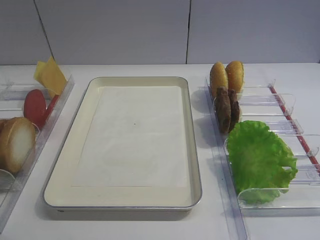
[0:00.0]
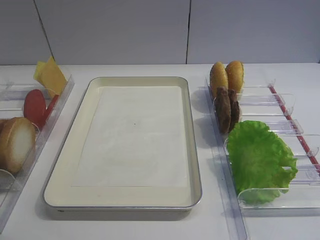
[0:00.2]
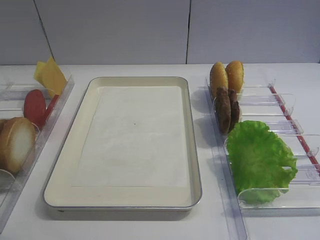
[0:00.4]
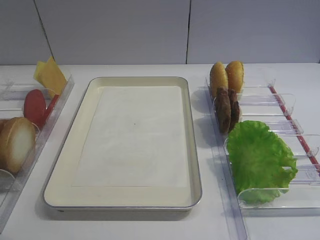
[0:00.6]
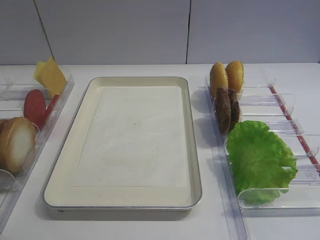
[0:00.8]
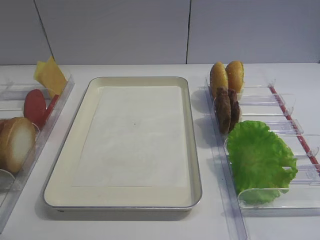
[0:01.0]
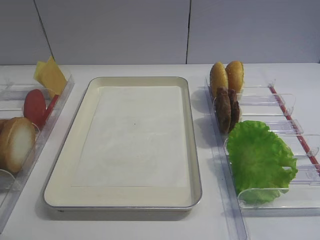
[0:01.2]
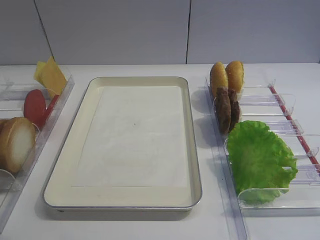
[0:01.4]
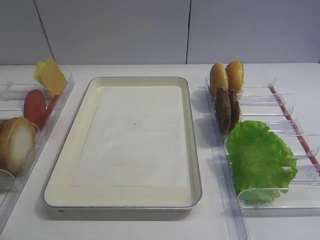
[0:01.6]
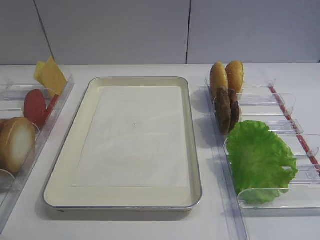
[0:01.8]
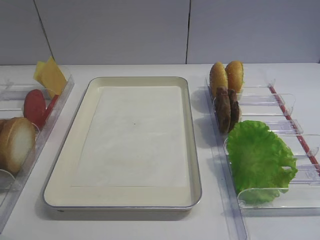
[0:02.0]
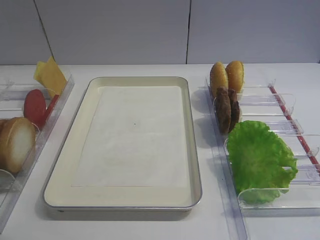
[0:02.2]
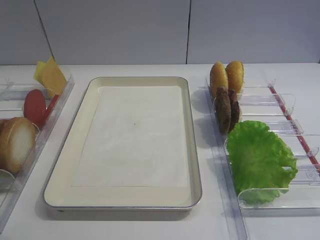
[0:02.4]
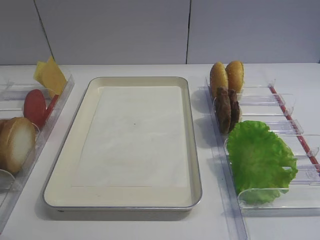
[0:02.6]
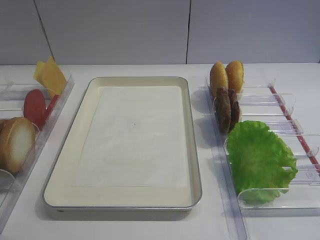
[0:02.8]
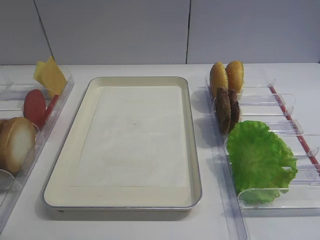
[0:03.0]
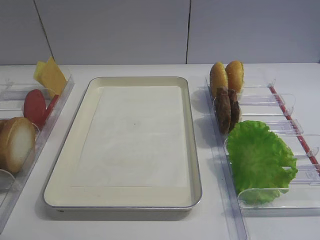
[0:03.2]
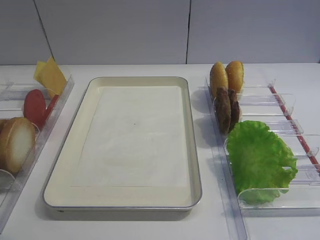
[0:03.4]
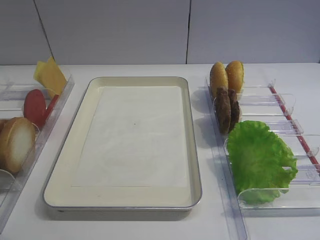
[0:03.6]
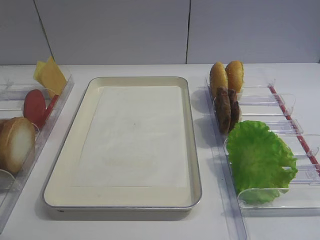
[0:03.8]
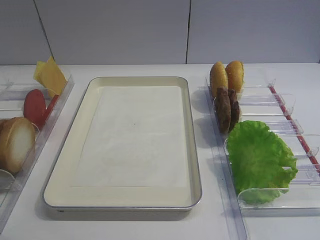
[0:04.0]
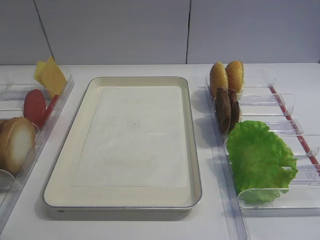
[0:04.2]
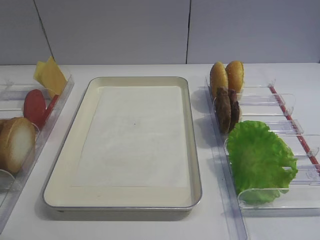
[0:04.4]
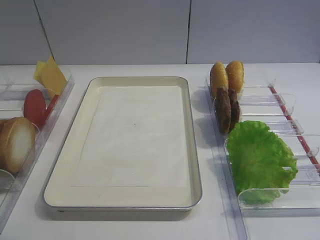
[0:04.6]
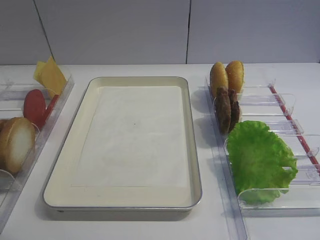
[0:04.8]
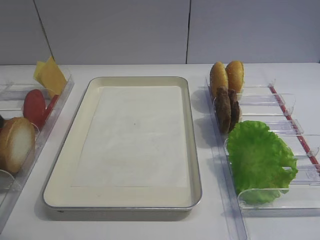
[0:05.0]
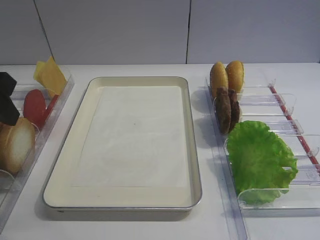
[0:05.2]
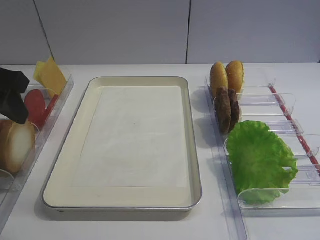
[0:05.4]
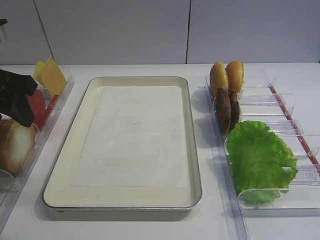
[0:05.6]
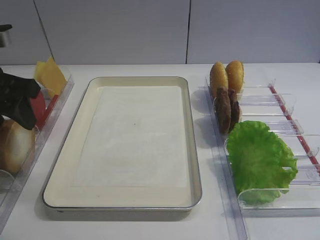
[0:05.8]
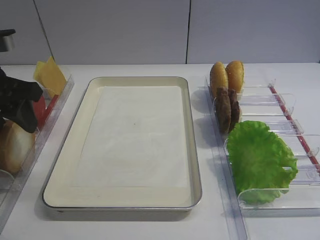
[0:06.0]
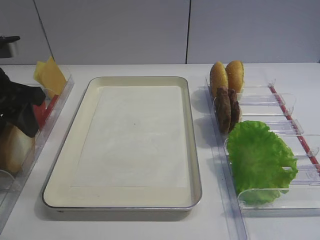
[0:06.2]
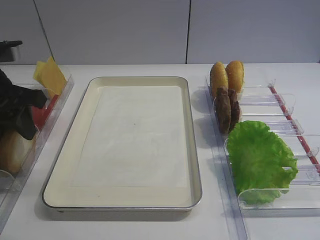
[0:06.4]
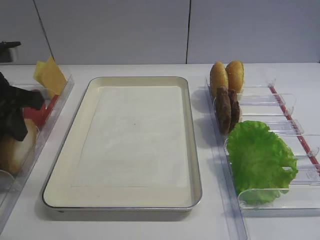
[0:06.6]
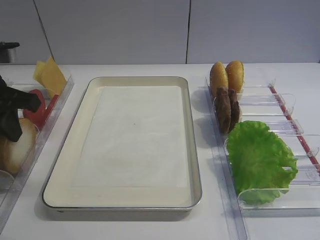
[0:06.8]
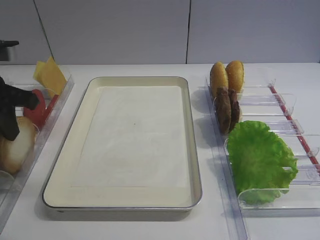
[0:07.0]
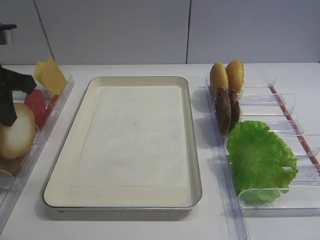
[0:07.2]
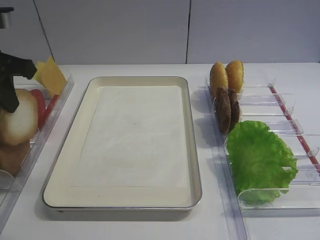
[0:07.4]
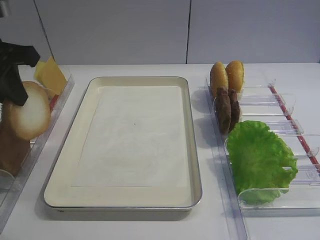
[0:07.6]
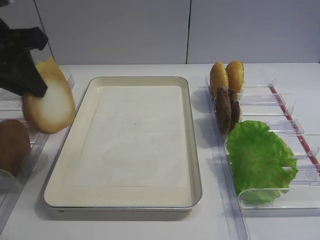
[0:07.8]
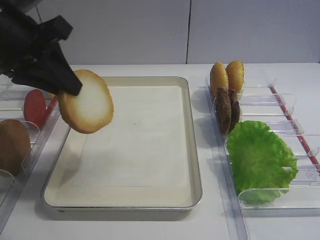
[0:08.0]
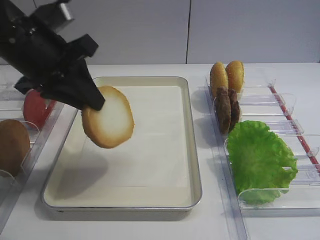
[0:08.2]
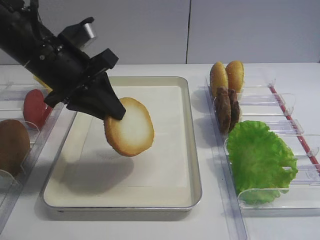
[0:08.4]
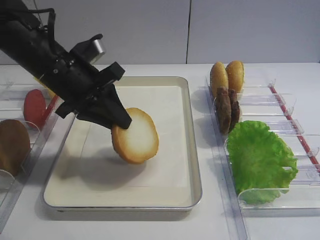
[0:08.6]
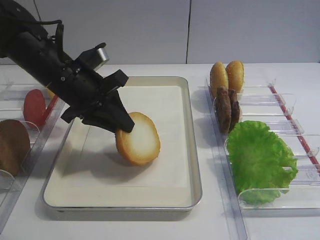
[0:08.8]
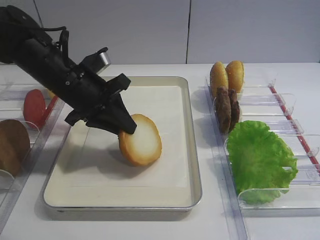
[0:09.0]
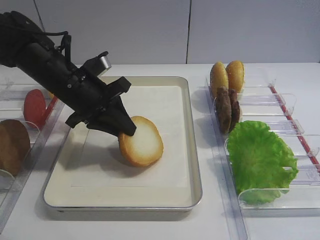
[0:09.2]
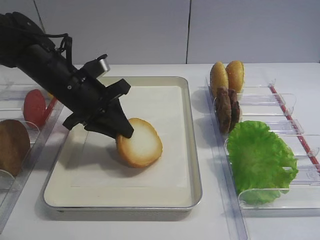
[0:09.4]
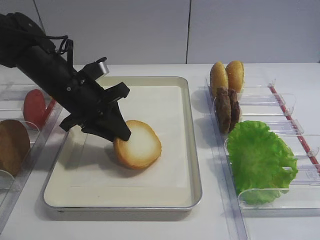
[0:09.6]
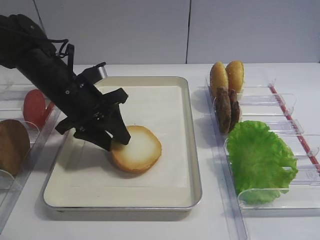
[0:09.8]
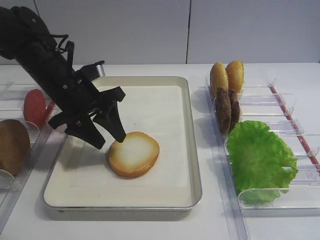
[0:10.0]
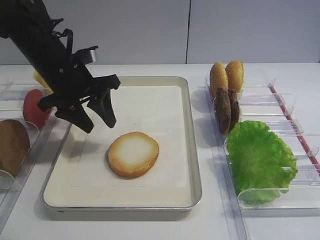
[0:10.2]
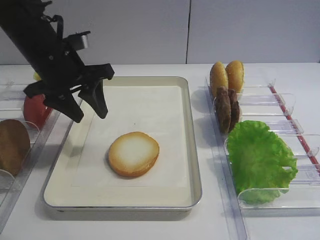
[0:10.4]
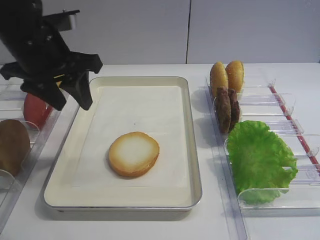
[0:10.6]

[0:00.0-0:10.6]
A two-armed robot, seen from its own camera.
Step, 0:00.0 to 0:07.2: Pick up the bread slice with the left gripper.
Step, 0:07.4 to 0:10.2: Place the bread slice on the tray with the left gripper.
0:01.6 to 0:03.0: Both grippers stay put.
0:04.6 to 0:06.0: The left gripper goes approximately 15 cm forward.
0:06.0 to 0:07.6: The left gripper changes place by approximately 5 cm, and closes up.
0:07.6 to 0:09.0: The left gripper heads downward, to the right and forward, covering some 15 cm.
0:09.0 to 0:10.6: The left gripper goes some 10 cm upward, and opens.

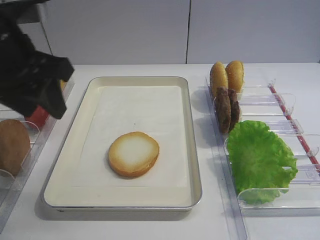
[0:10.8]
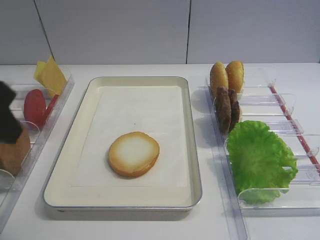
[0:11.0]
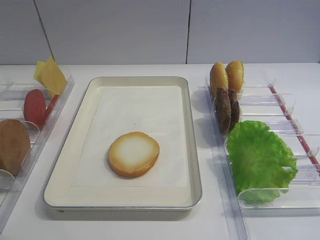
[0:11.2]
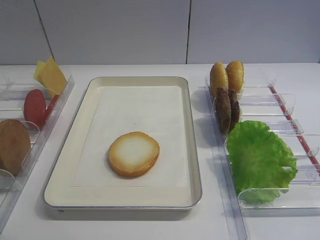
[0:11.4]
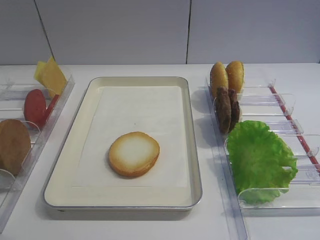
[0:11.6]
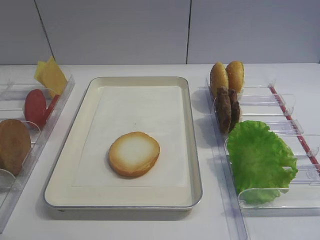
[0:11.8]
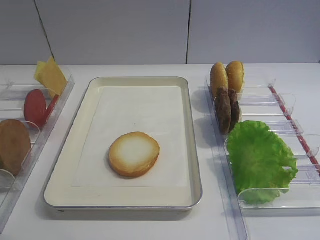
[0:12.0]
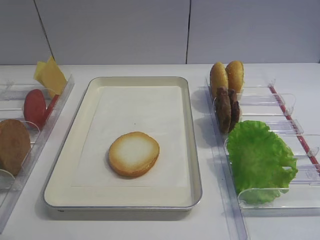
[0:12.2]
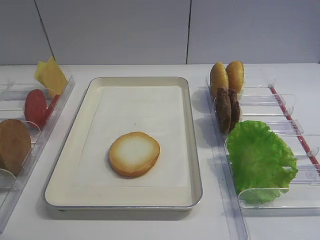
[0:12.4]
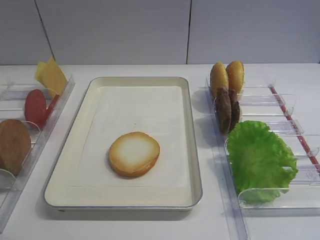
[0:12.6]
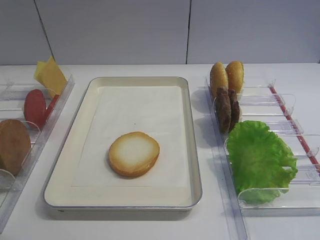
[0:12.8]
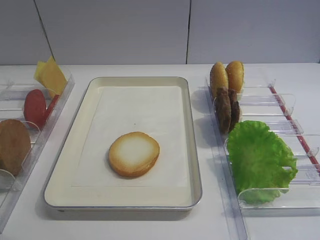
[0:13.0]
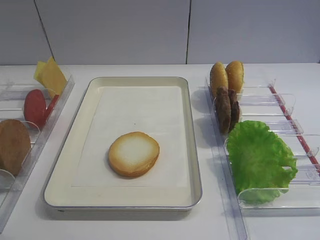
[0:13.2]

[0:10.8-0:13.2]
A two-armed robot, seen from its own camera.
0:10.8 to 0:12.0: The left gripper shifts about 25 cm backward.

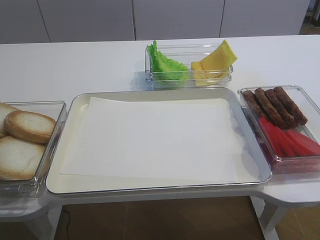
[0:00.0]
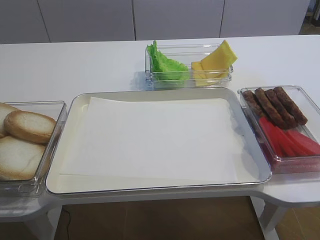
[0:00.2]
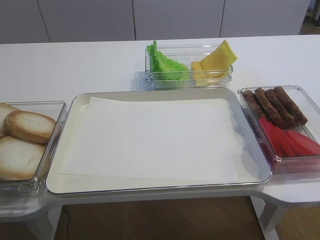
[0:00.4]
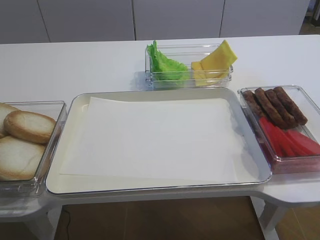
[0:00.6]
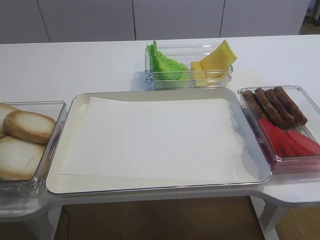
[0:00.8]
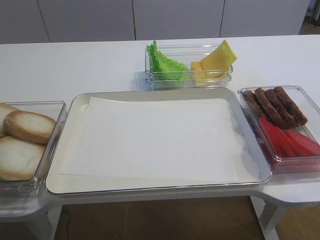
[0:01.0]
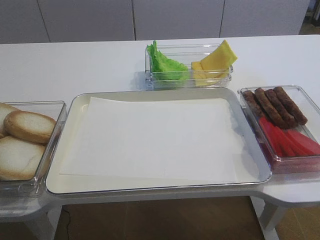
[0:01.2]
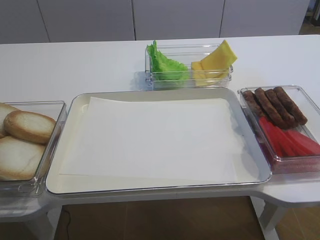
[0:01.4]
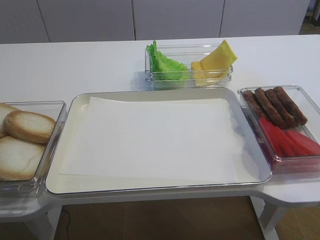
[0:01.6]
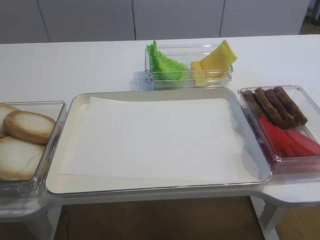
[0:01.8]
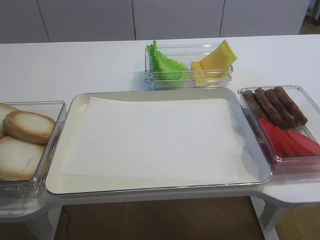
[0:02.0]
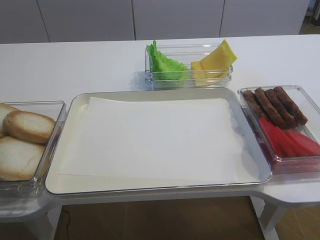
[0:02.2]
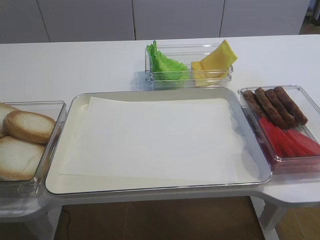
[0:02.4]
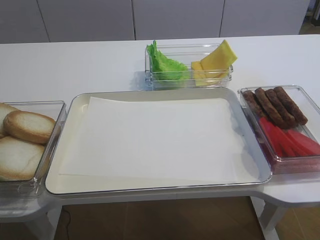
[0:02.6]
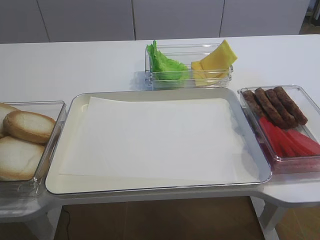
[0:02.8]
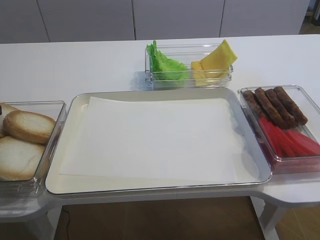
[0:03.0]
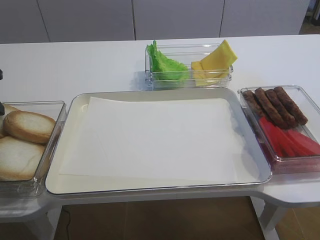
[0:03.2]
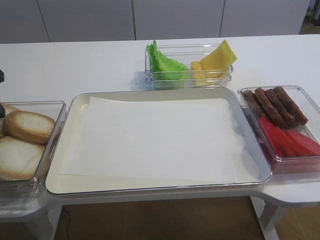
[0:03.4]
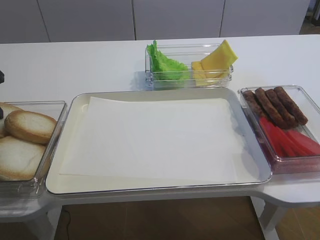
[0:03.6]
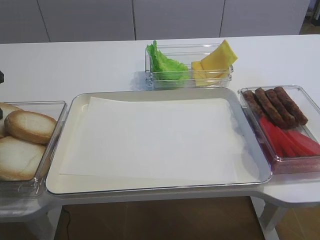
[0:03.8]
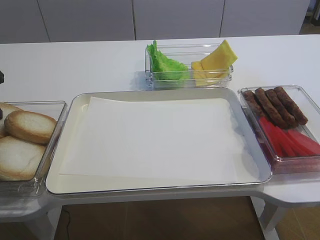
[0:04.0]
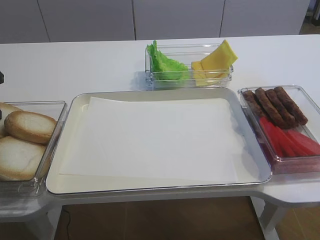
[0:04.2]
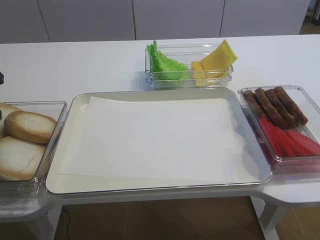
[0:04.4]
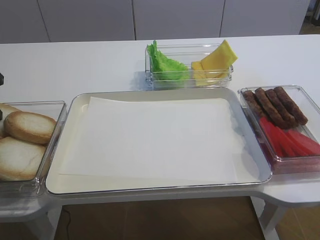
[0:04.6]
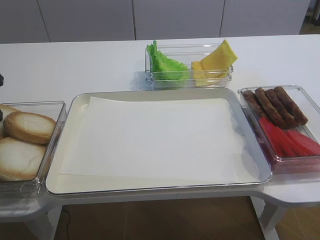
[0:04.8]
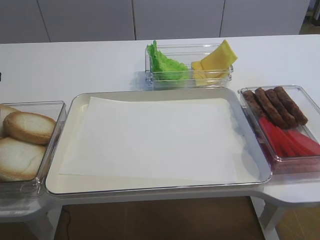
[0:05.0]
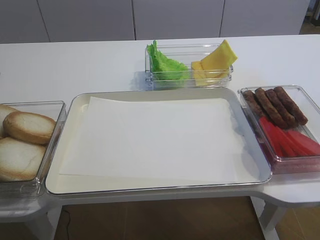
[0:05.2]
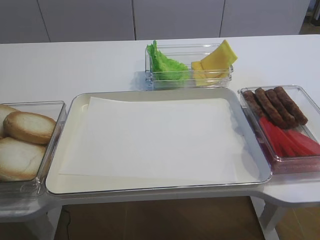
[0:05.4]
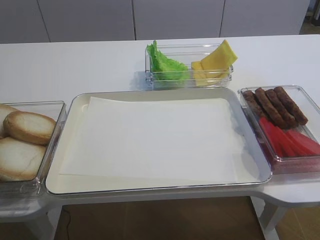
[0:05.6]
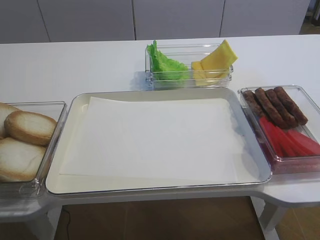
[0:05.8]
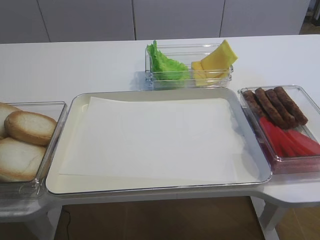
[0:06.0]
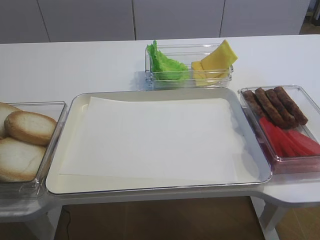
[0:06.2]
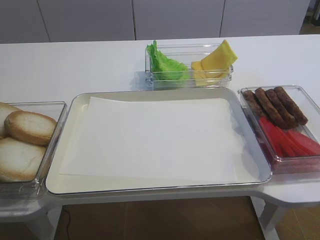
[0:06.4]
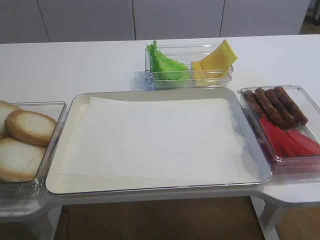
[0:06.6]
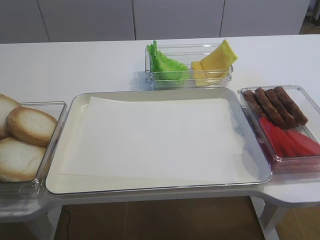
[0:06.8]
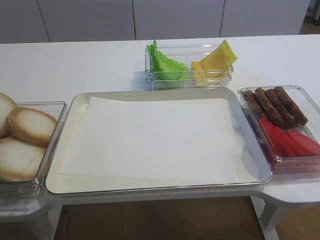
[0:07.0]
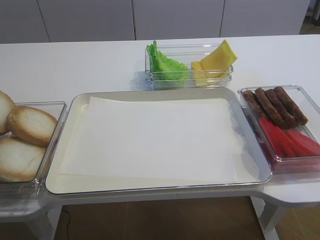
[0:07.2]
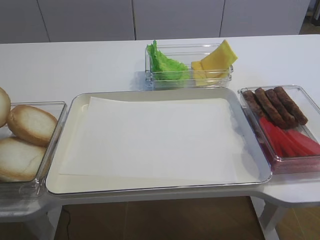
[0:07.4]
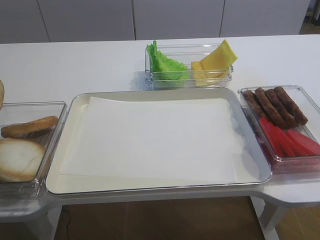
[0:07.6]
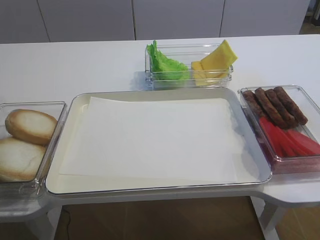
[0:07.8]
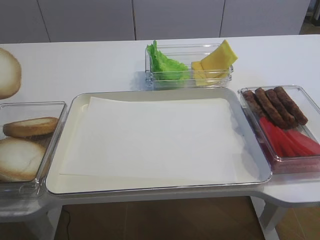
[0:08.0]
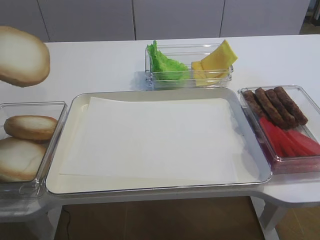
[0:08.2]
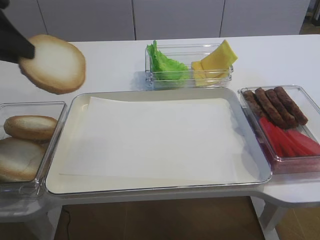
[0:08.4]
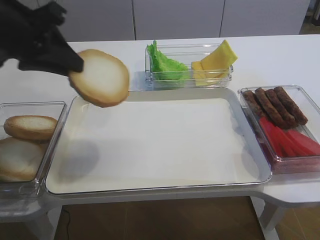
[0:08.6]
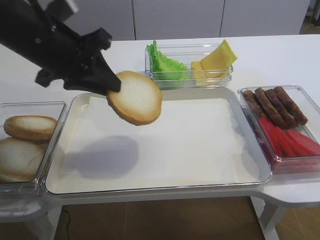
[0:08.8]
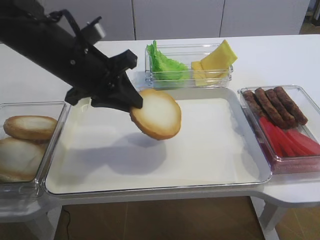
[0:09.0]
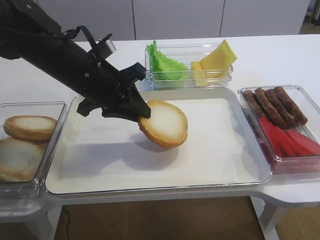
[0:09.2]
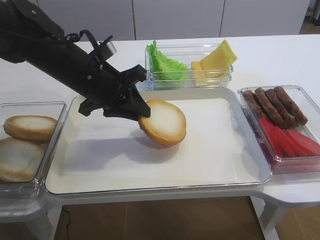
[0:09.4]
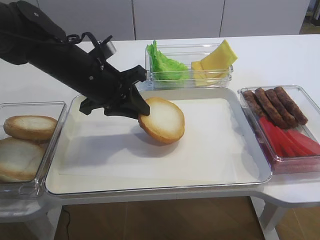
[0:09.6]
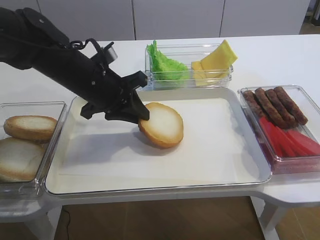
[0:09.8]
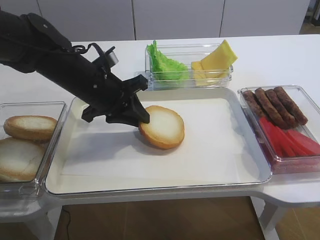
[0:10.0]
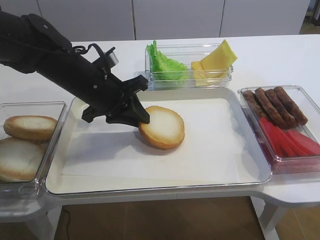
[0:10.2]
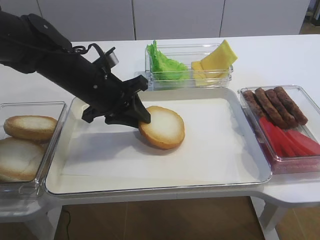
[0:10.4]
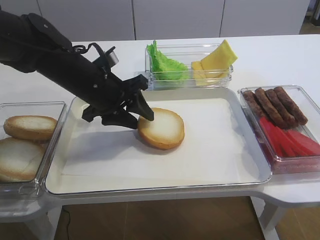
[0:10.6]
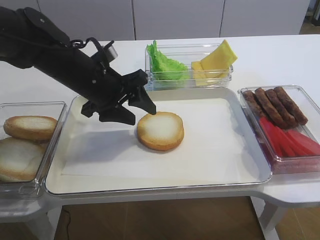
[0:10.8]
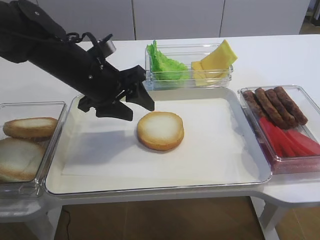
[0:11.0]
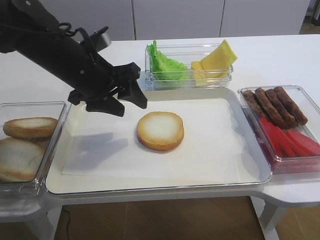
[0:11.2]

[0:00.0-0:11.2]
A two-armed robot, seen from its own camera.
Step, 0:00.0 to 0:08.2: Pick up the bread slice with the left gripper.
0:03.2 to 0:04.8: Neither gripper changes place.
0:06.4 to 0:08.0: The left gripper goes roughly 10 cm upward and backward.
0:08.0 to 0:09.6: The left gripper is displaced to the right, downward and forward by approximately 25 cm.
0:09.6 to 0:11.2: The left gripper opens its fingers.
